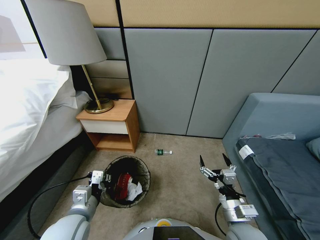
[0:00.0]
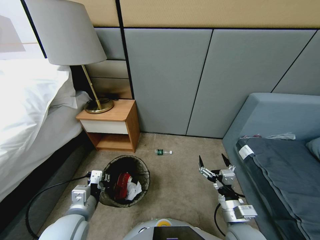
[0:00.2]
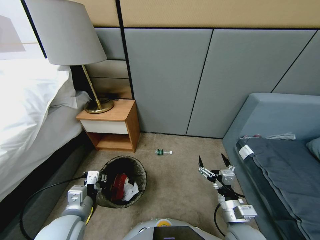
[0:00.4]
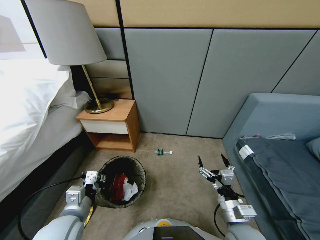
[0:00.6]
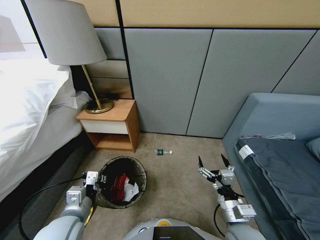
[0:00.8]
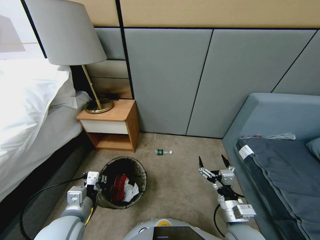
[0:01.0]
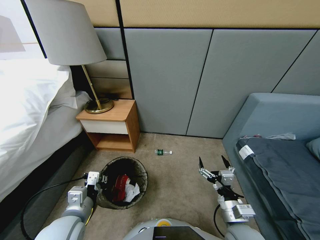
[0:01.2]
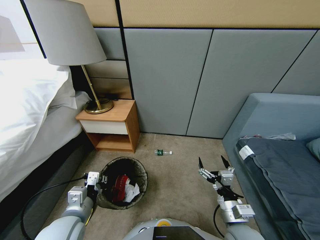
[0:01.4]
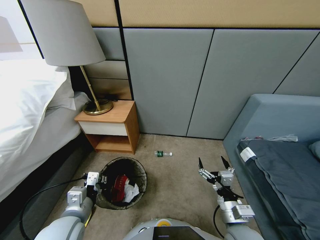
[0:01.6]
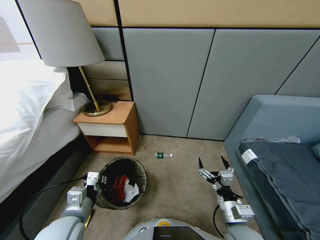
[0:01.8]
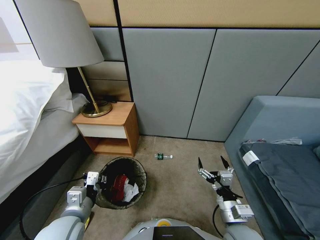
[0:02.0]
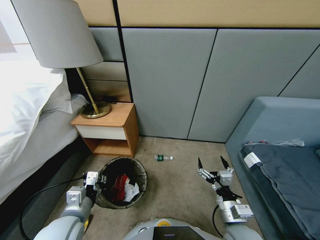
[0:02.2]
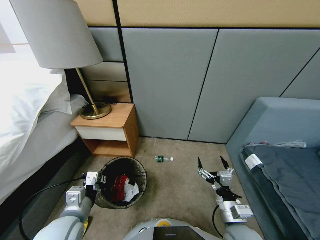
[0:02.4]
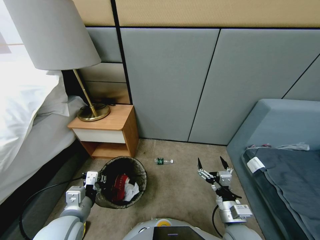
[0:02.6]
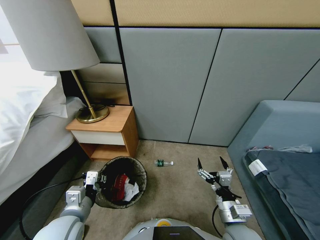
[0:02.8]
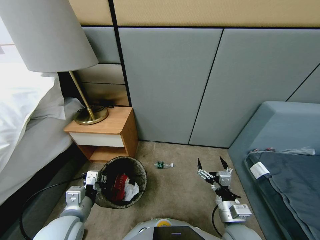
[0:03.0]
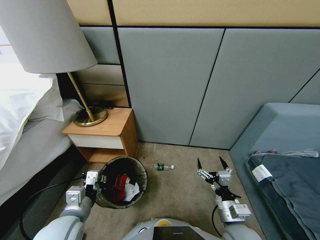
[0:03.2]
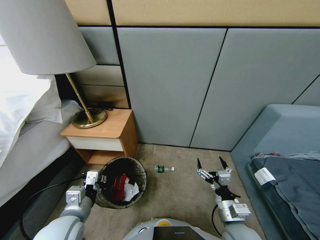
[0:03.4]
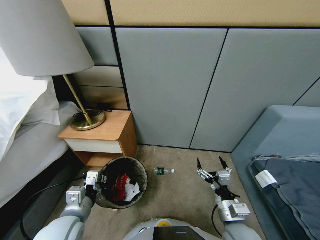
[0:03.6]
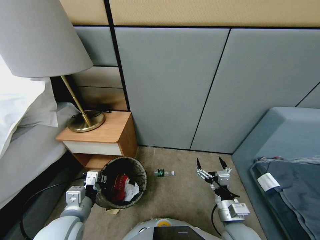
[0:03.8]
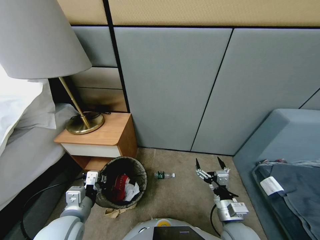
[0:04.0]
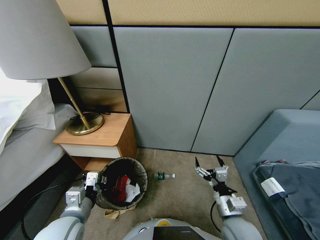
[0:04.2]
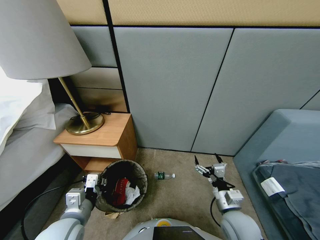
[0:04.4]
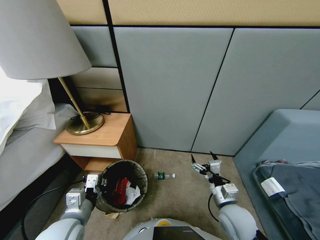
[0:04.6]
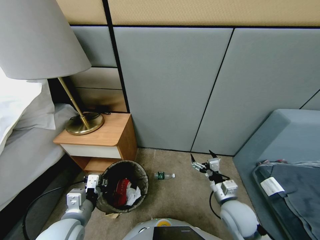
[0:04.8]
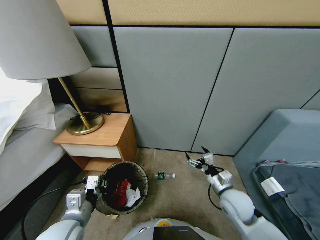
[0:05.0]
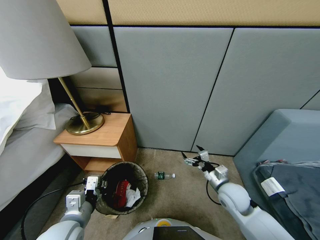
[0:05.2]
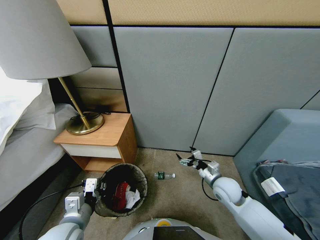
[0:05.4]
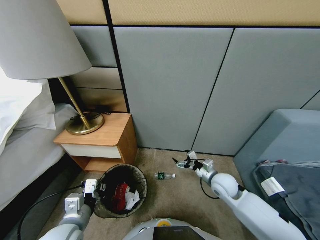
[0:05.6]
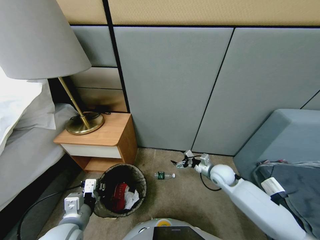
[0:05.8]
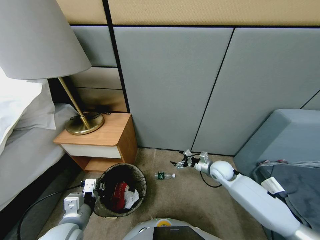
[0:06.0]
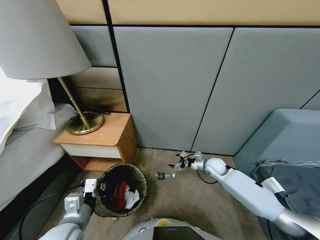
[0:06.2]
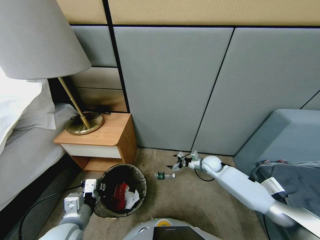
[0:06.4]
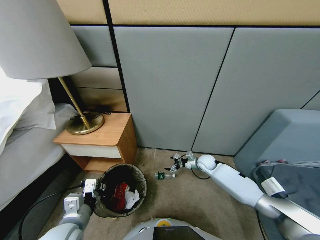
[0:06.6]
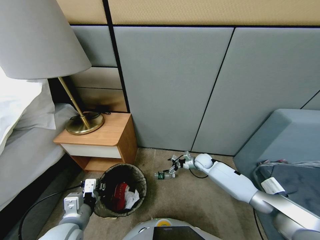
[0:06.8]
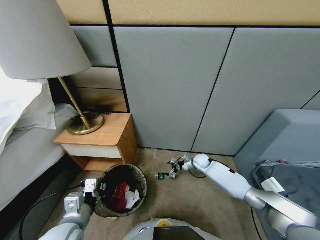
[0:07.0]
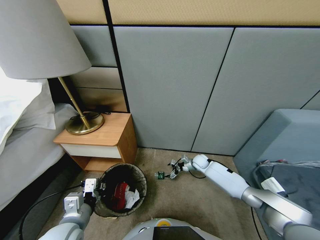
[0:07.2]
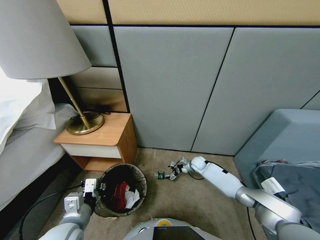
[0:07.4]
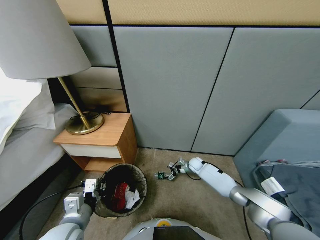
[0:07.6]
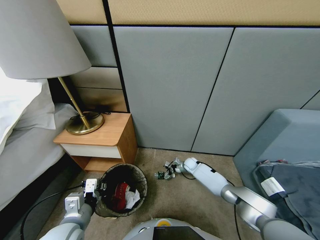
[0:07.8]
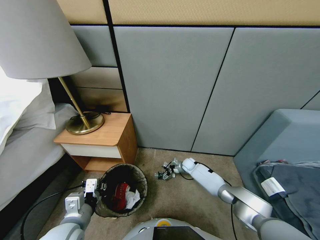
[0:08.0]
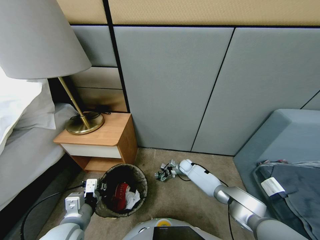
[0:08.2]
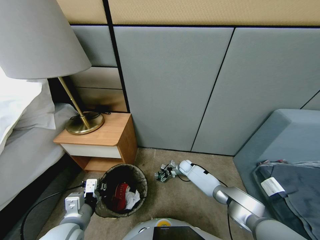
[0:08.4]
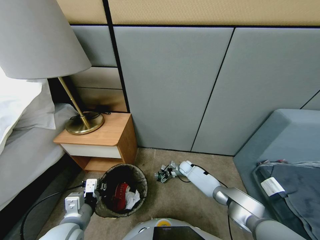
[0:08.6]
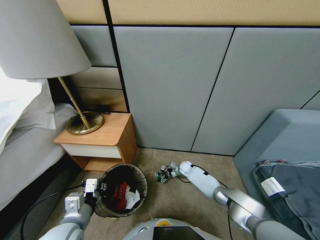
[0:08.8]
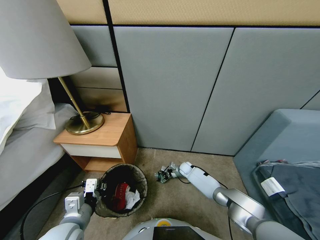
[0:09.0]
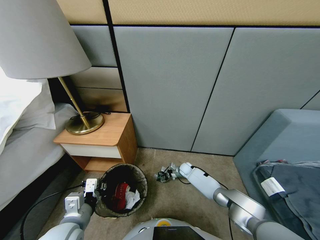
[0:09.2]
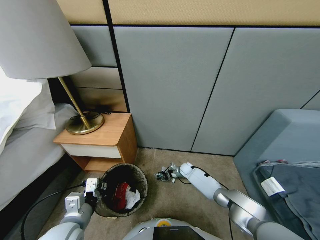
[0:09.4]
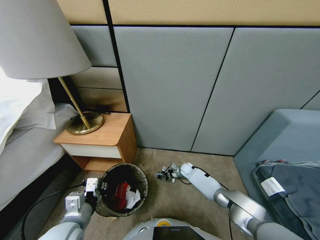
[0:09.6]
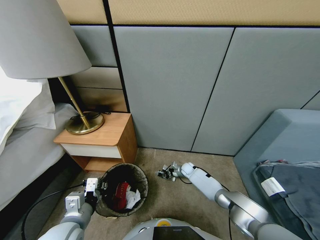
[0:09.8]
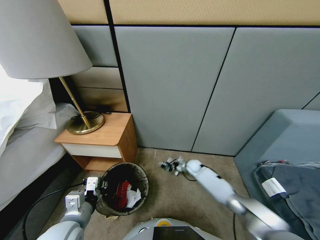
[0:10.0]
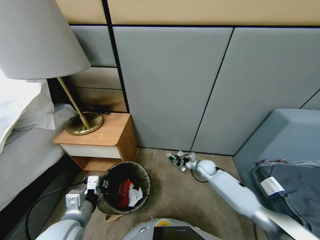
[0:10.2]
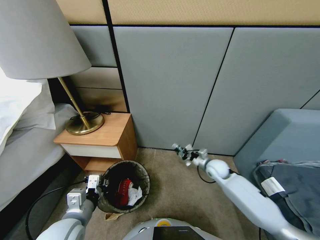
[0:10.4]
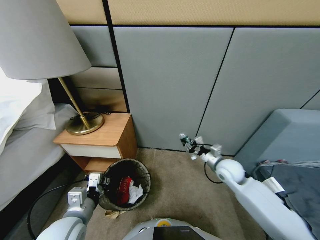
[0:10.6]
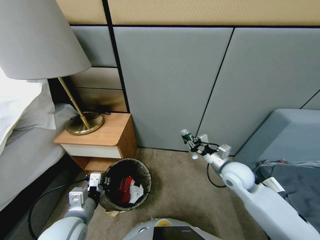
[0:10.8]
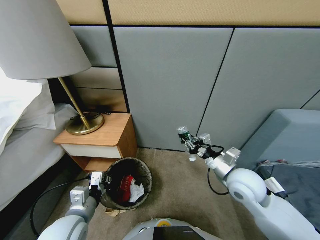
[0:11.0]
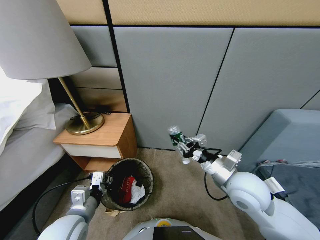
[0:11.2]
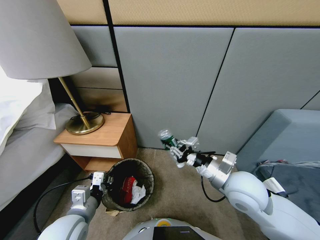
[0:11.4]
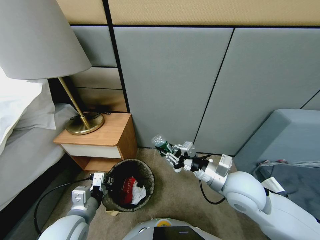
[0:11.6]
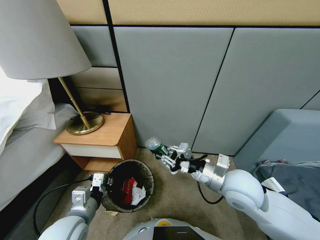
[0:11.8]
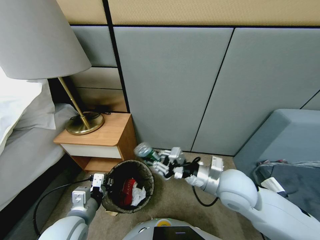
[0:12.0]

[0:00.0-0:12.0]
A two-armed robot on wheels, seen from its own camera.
Task of the whole recording: Pick up the trash bin, then pick up the garbage from the floor and place it into the trash bin.
0:00.0 to 0:01.6: Neither gripper changes place.
0:04.4 to 0:06.0: The right gripper heads forward, covering roughly 20 cm.
0:06.0 to 0:07.6: The right gripper heads downward, forward and to the left, covering some 20 cm.
0:07.6 to 0:09.0: The right gripper changes place by about 5 cm.
0:09.0 to 0:10.4: The right gripper heads upward, backward and to the right, covering about 30 cm, and closes its fingers.
0:10.4 to 0:12.0: The right gripper is displaced upward, backward and to the left by approximately 20 cm.

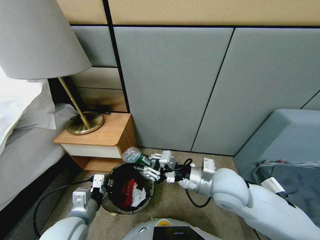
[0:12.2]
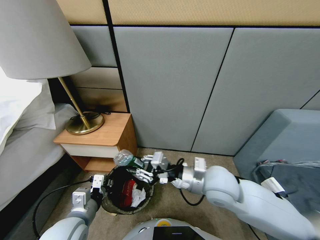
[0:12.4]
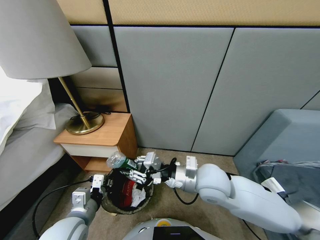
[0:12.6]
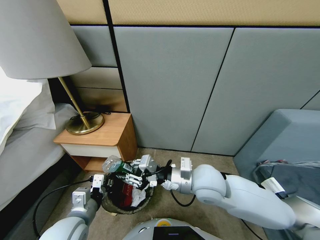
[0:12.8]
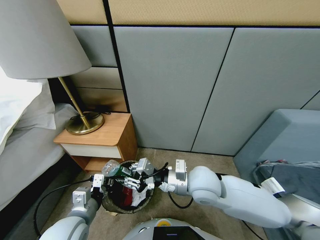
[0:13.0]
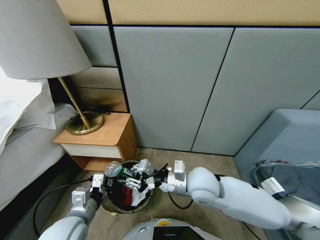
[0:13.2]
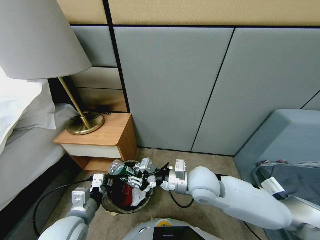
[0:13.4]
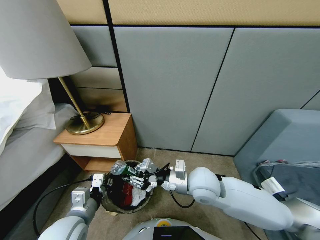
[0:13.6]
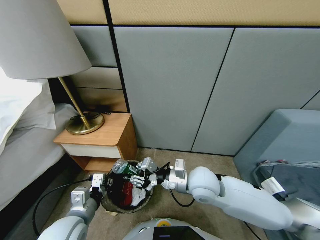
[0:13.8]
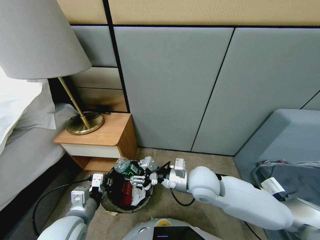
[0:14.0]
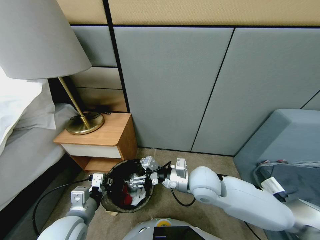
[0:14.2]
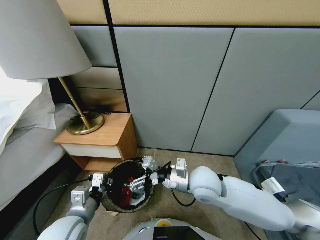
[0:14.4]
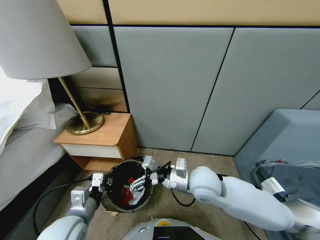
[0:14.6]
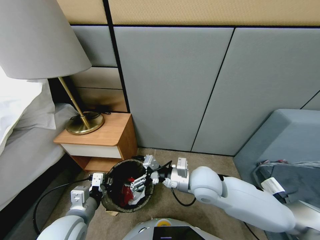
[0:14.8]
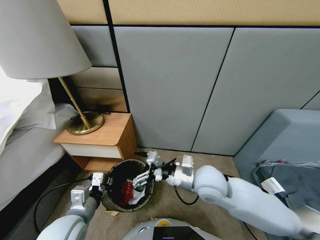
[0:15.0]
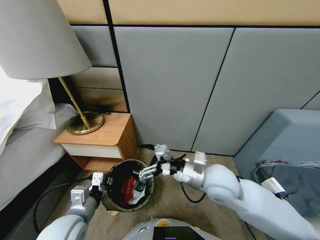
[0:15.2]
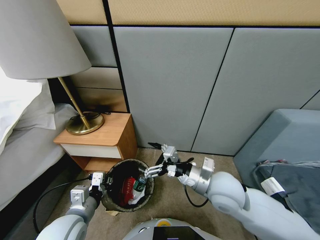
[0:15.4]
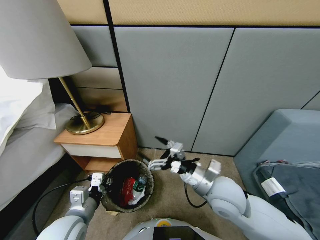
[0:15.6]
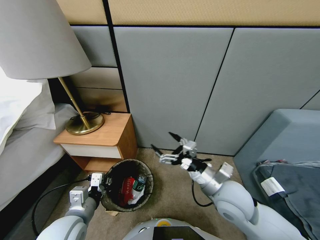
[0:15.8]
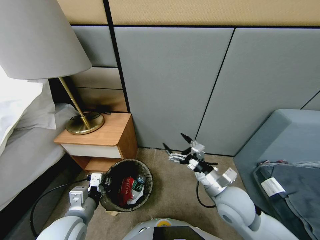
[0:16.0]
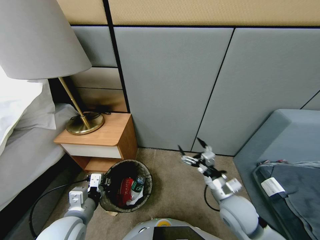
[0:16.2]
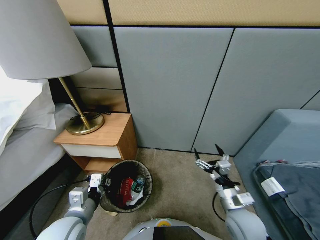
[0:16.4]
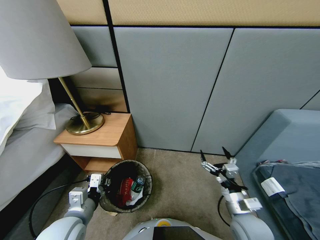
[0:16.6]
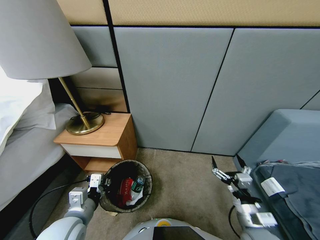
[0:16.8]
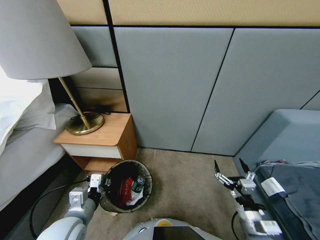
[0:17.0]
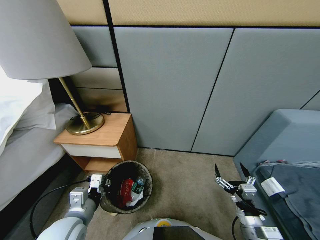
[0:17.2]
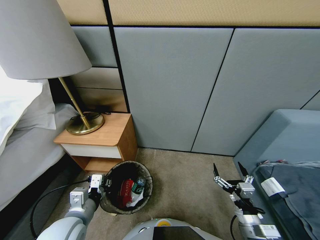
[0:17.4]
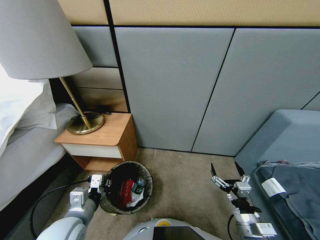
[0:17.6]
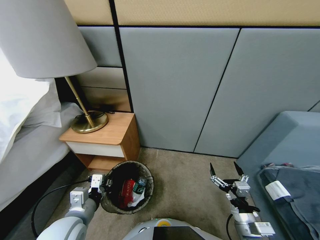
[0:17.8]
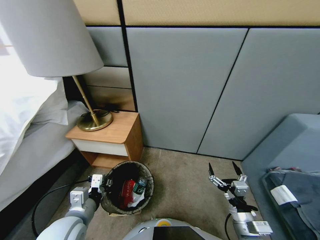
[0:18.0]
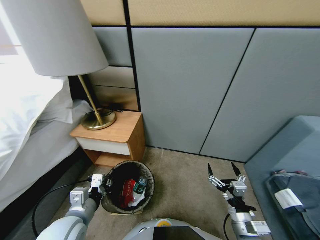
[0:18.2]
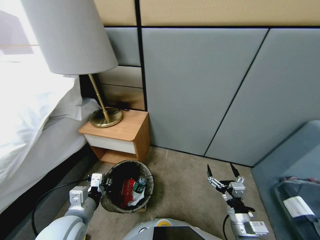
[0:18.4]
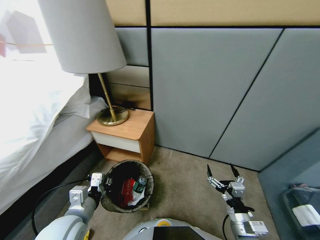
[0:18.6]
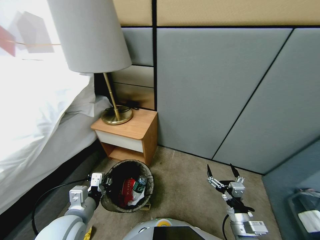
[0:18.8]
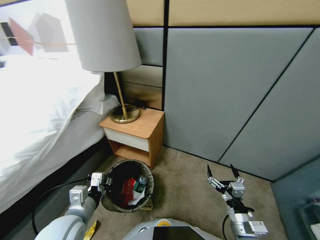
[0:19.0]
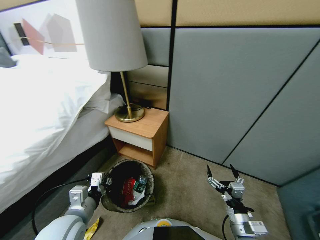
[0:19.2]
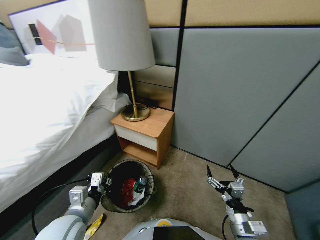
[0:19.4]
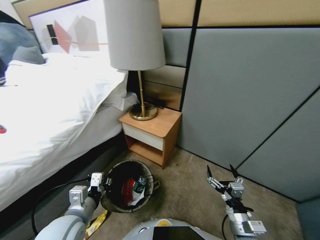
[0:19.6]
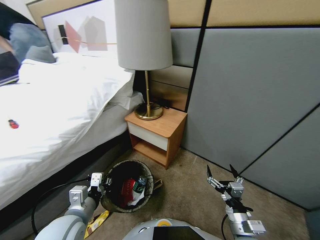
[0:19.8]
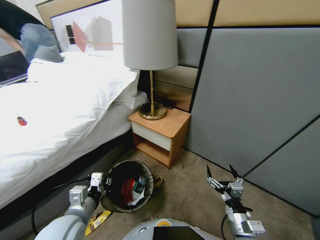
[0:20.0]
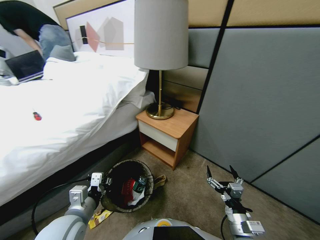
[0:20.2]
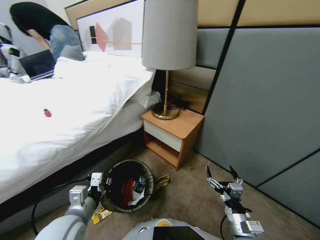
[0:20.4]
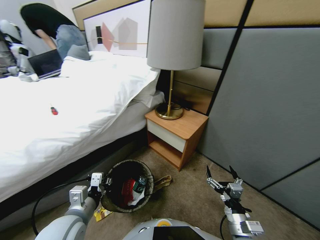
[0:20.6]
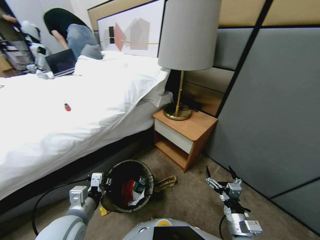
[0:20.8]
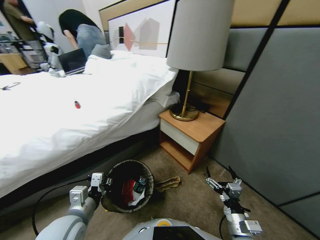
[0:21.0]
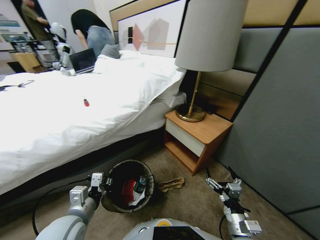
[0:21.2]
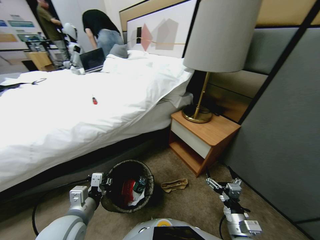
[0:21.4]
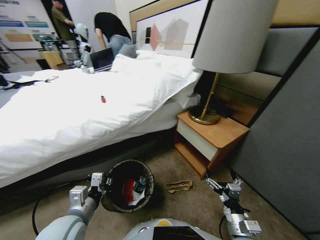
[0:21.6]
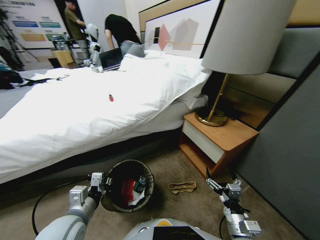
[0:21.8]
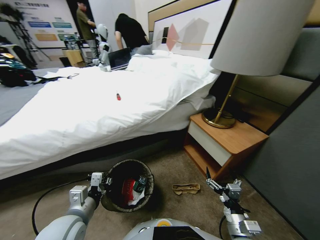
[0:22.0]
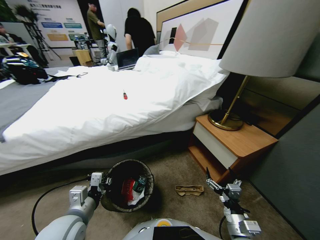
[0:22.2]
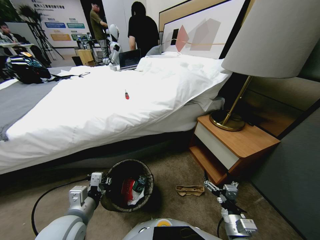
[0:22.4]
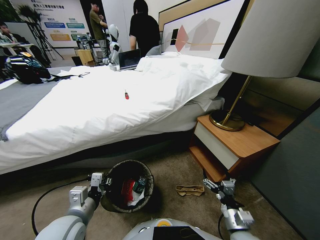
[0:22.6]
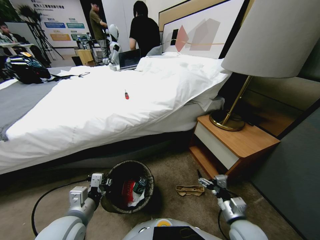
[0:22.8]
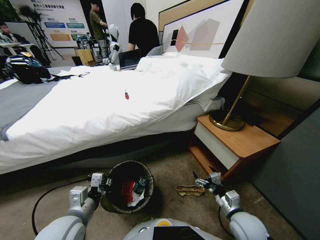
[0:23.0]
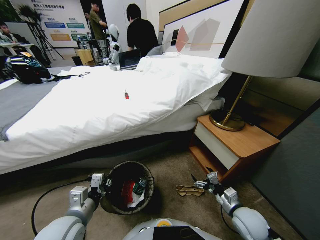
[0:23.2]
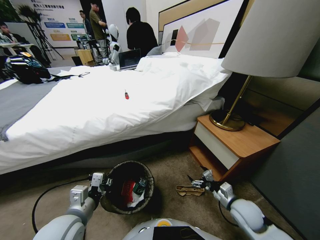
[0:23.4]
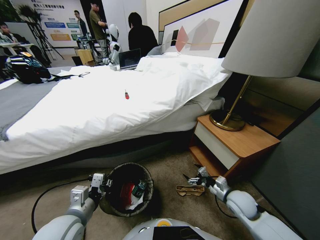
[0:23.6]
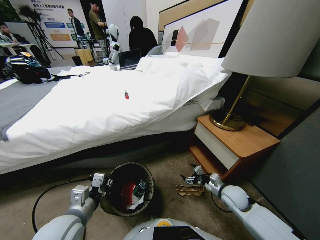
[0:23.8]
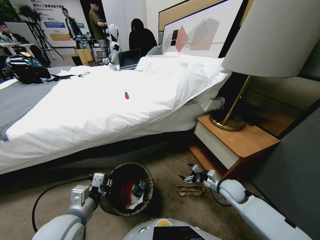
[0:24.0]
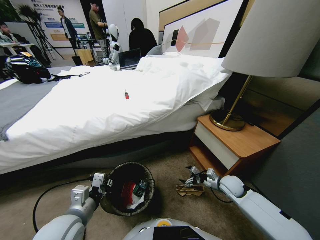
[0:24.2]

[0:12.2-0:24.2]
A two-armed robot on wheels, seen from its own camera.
Task of the whole recording: Pick up the trash bin, then pick up the garbage from the floor and place it into the trash bin.
0:12.2 to 0:13.8: The right gripper shifts by some 5 cm.
0:13.8 to 0:15.2: The right gripper ends up some 5 cm from where it was, and opens its fingers.
0:15.2 to 0:16.6: The right gripper travels downward, to the right and backward by roughly 20 cm.
0:22.6 to 0:24.2: The right gripper moves forward, approximately 20 cm.
